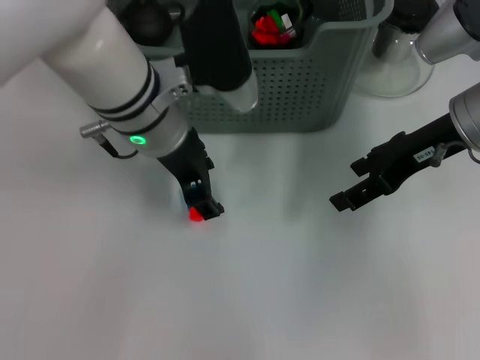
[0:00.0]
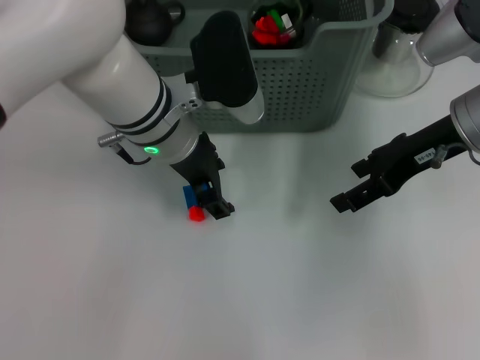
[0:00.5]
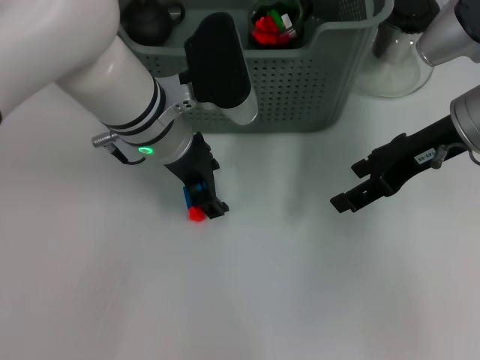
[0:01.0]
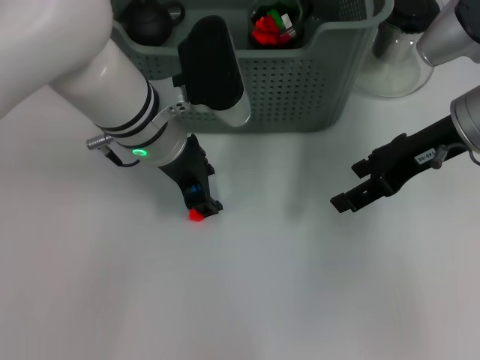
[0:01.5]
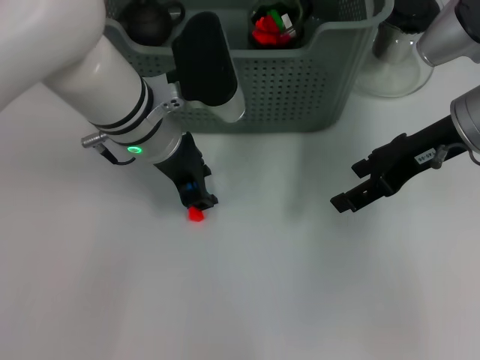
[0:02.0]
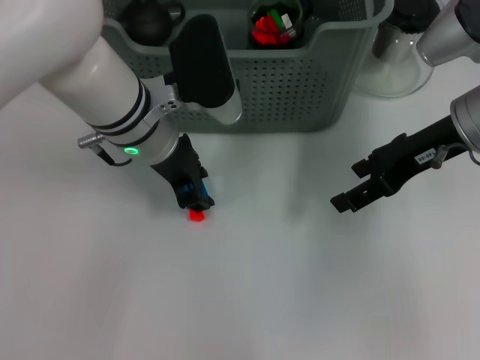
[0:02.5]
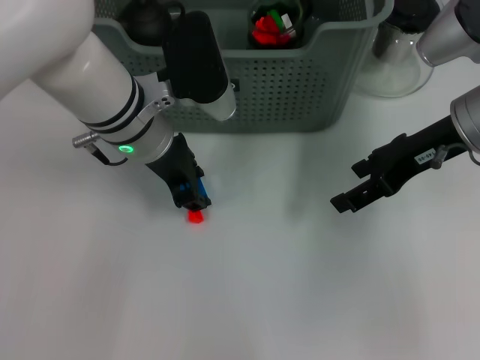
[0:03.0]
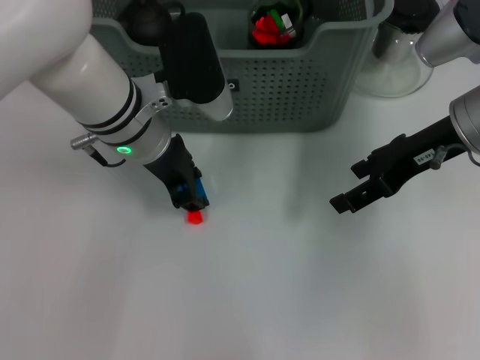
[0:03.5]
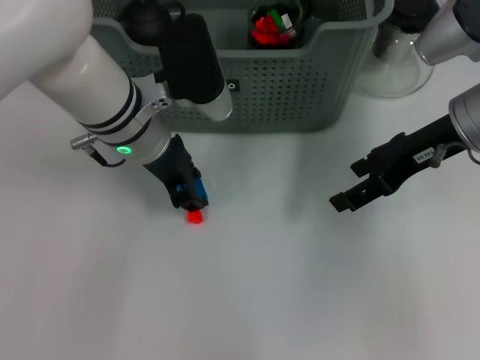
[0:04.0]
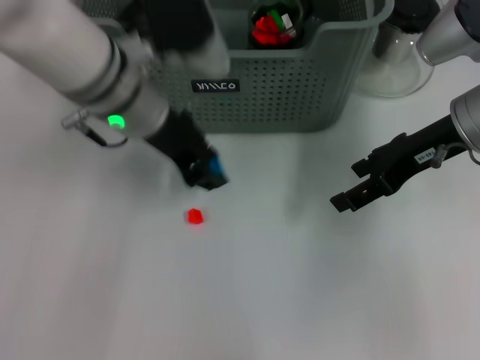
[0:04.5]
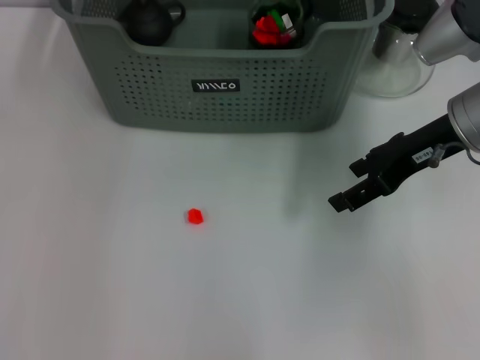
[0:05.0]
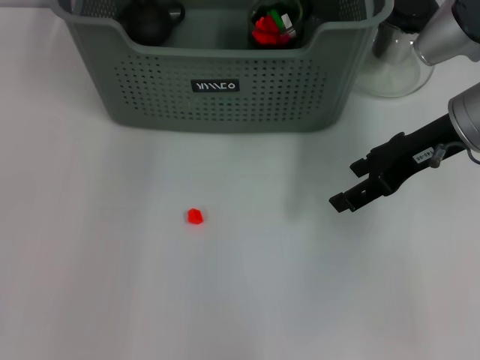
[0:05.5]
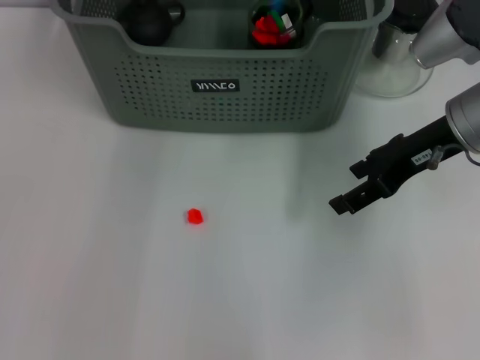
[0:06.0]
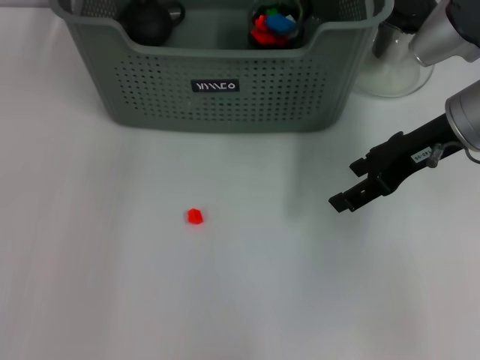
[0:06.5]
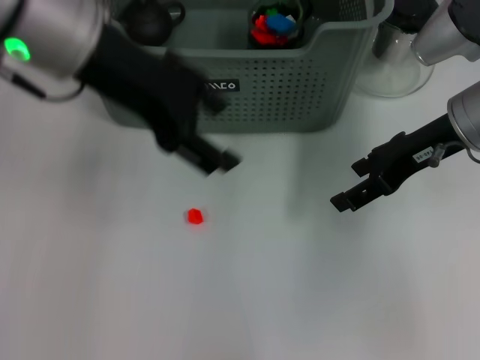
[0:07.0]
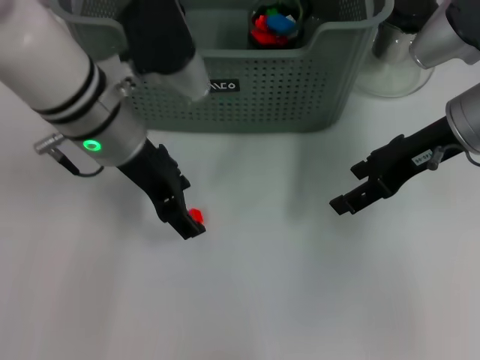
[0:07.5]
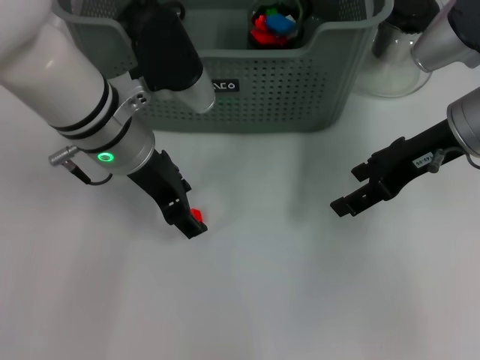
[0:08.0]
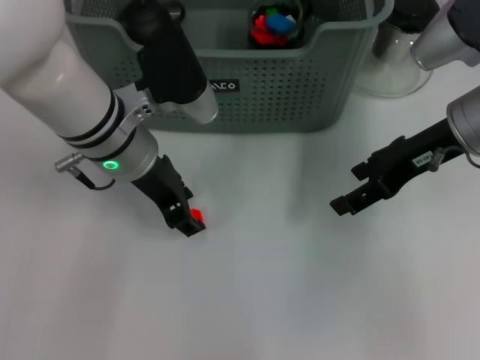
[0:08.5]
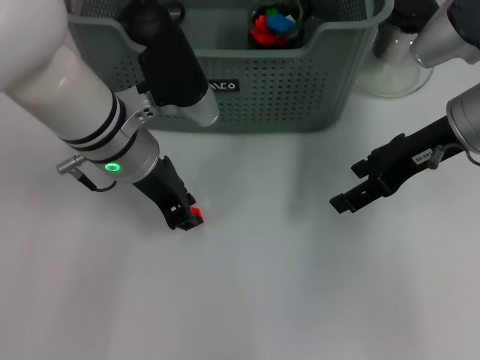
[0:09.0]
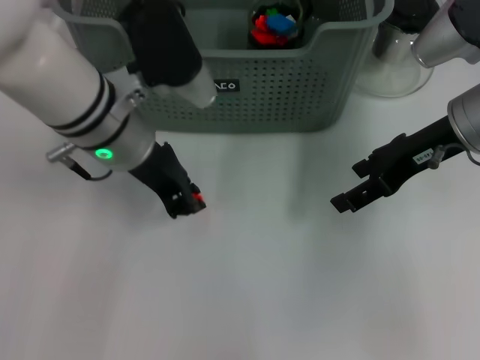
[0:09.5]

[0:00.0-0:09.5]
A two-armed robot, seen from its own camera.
Task of the whole recording: pick up the teacup on the table and place it into the storage bin, pick up the block on the table and place it into the storage bin.
Step, 0:00.0 to 0:04.0: Grasp the dark blue block with left gripper.
Step, 0:04.5 to 0:06.0: Place the dark blue block in the storage box with left gripper.
Step, 0:06.5 to 0:09.0: Grasp the orange block with left gripper.
0:00.0 to 0:02.0: There are only small adjustments of the grippers.
0:02.0 to 0:04.0: Neither gripper changes place.
0:04.0 to 0:05.5: The left gripper moves upward and forward, roughly 20 cm.
0:05.5 to 0:07.5: The left gripper is displaced downward and backward by roughly 20 cm, and opens its fingers.
0:07.5 to 0:09.5: The left gripper closes.

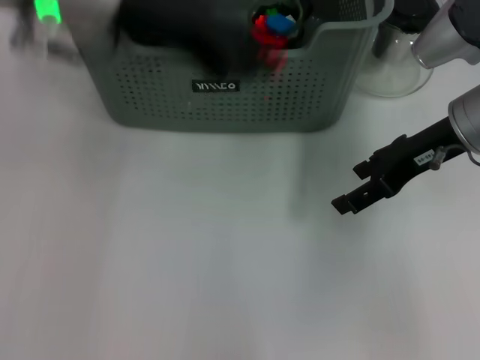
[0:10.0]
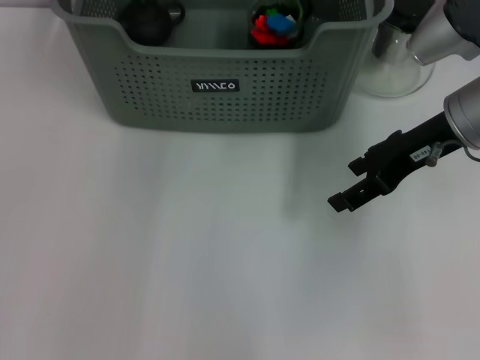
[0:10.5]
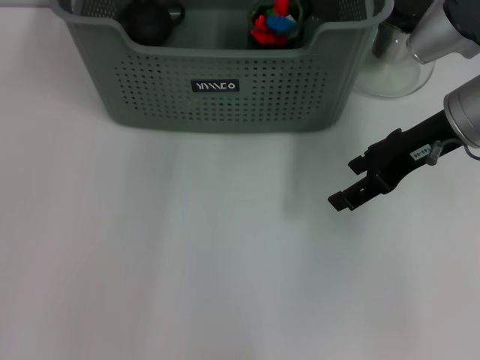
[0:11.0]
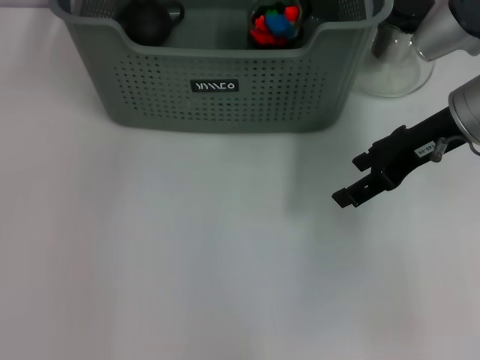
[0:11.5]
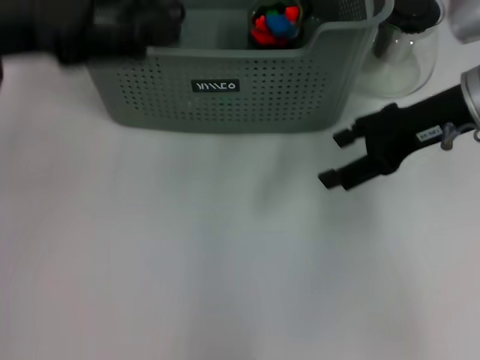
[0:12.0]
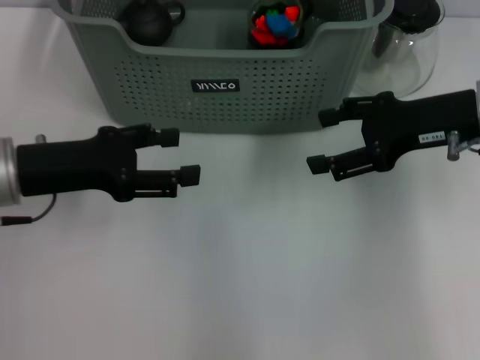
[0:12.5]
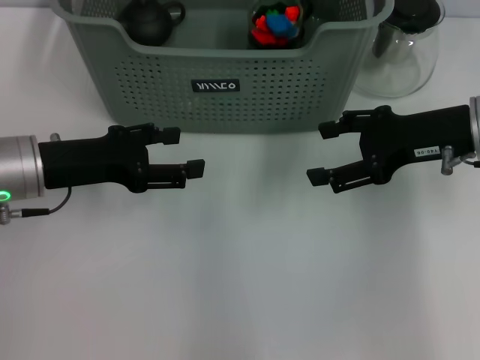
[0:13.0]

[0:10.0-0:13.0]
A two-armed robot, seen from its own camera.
Task of the whole recording: pick up the teacup on the table and place it into the storage bin, pick up the block on the table and place it into the storage bin.
Step, 0:10.0 to 0:11.0: Place the orange block in the storage box with left gripper.
0:10.0 to 0:11.5: The left gripper moves forward, some 10 cm, and opens up.
0:11.5 to 0:13.0: The left gripper travels downward, backward and to the left by about 25 cm.

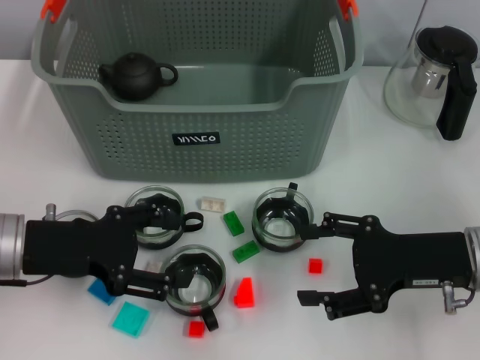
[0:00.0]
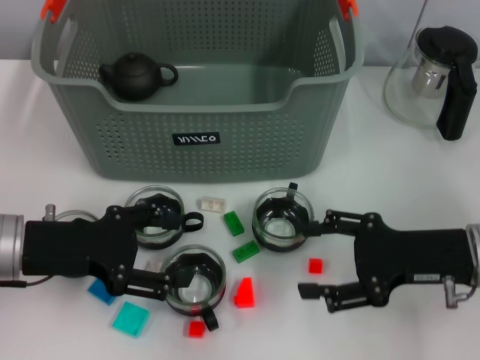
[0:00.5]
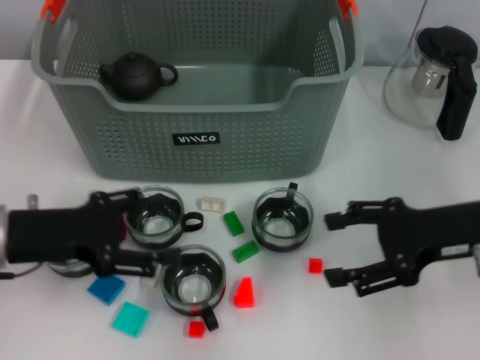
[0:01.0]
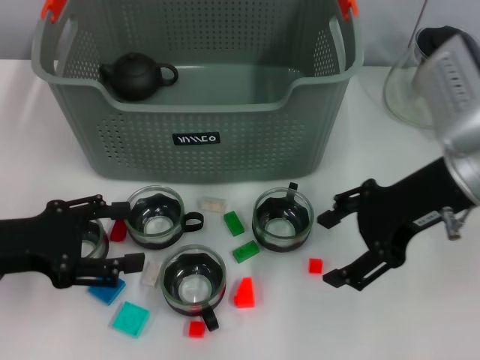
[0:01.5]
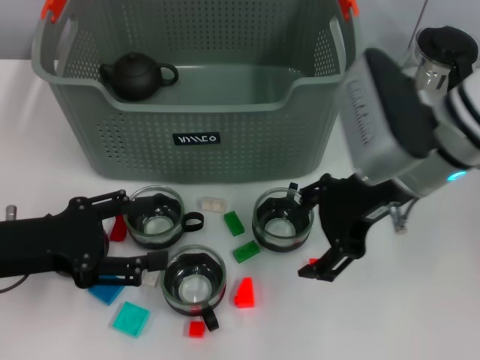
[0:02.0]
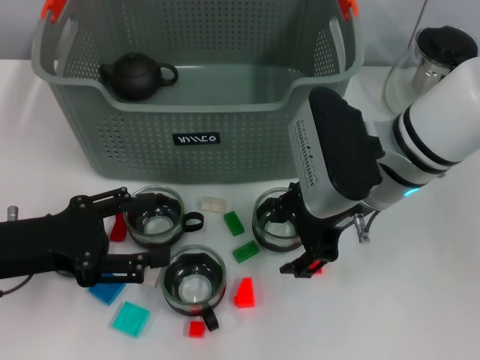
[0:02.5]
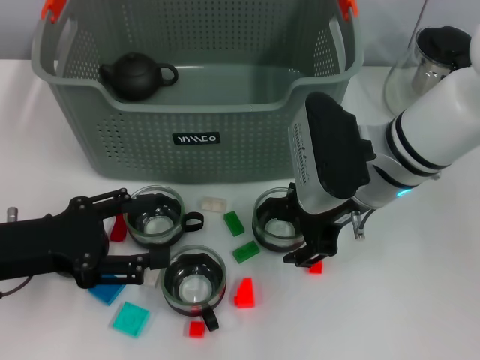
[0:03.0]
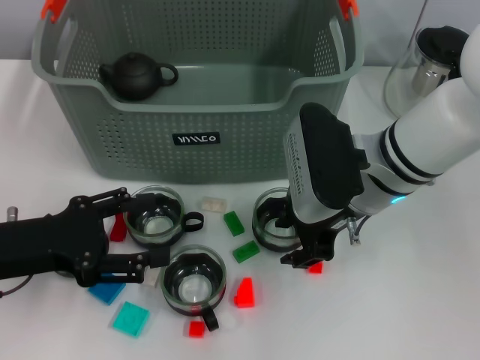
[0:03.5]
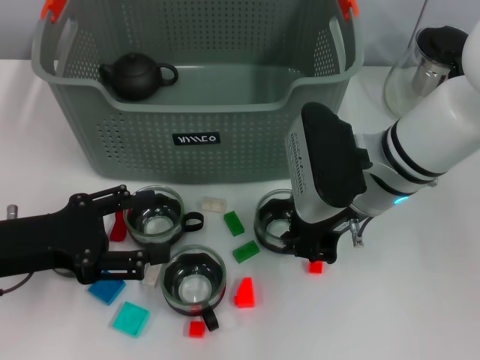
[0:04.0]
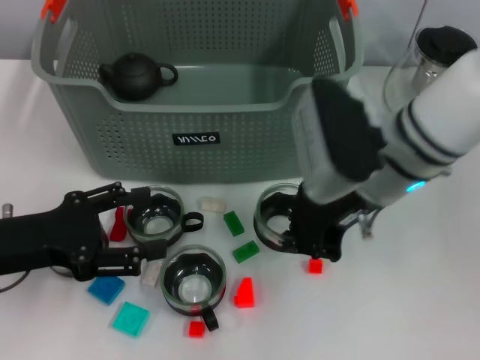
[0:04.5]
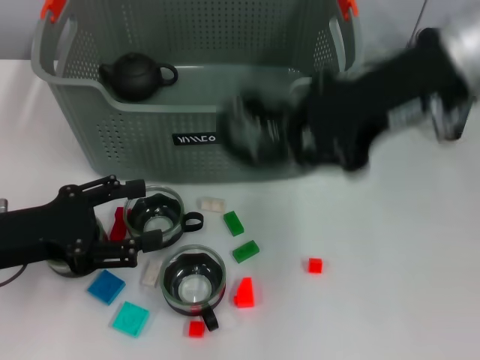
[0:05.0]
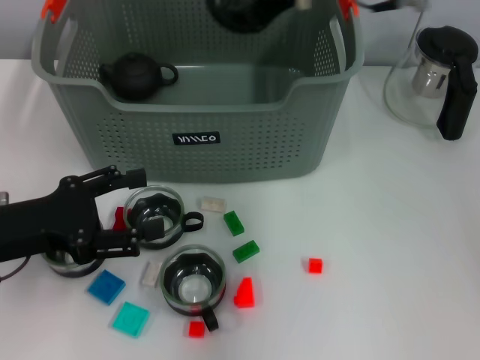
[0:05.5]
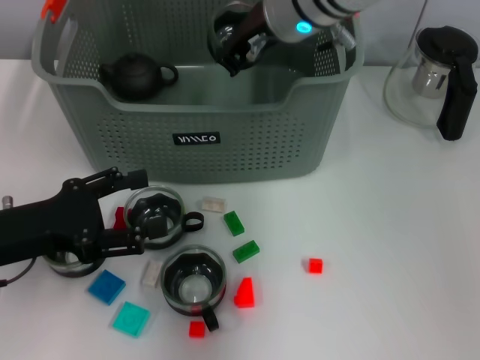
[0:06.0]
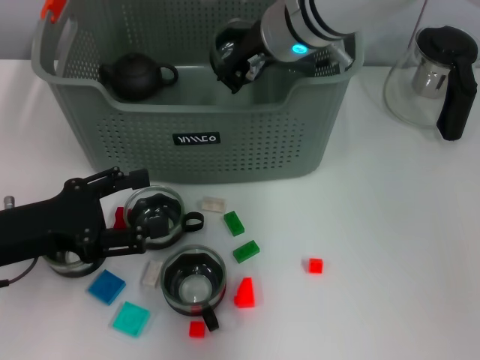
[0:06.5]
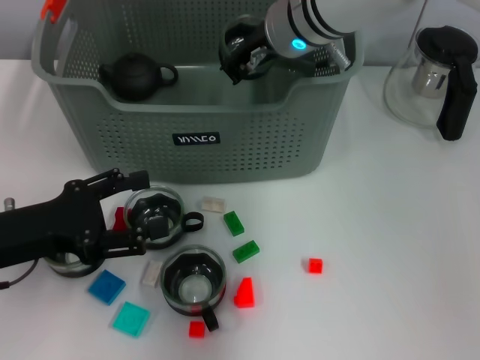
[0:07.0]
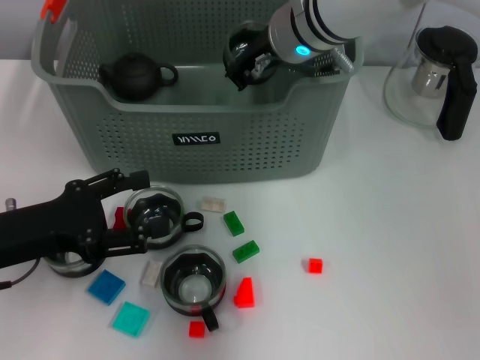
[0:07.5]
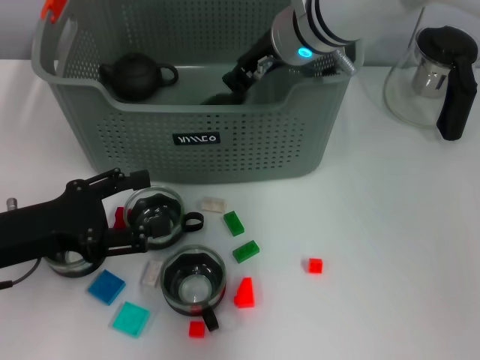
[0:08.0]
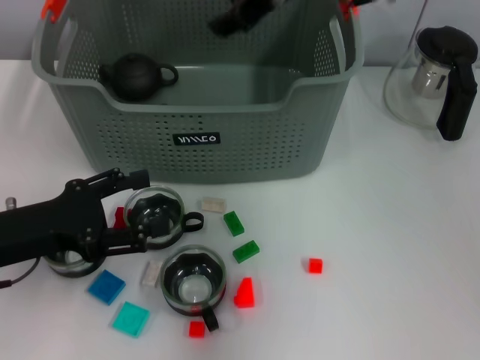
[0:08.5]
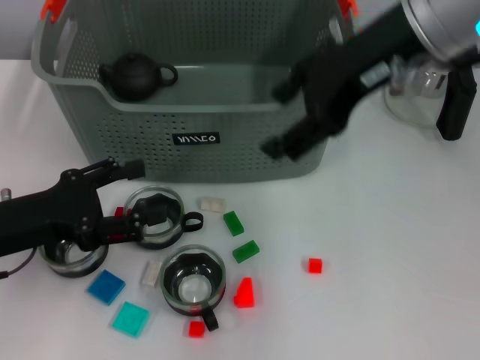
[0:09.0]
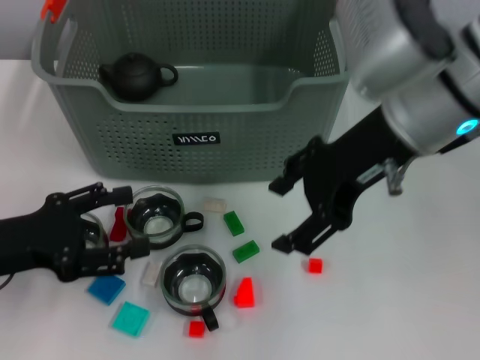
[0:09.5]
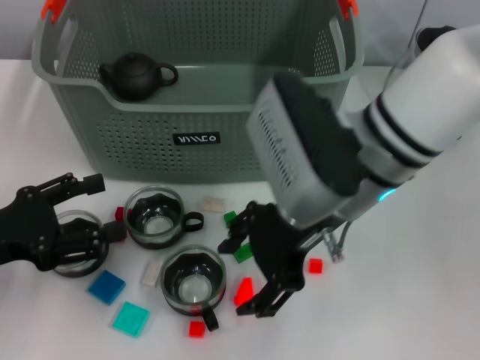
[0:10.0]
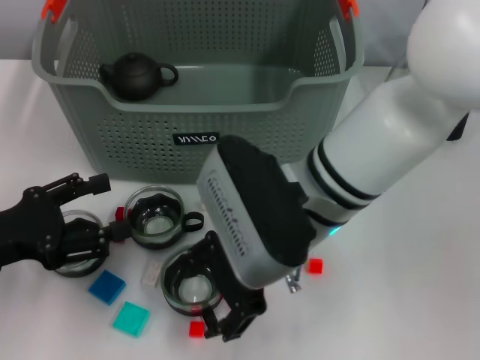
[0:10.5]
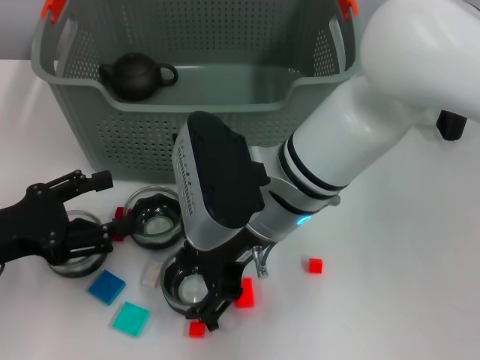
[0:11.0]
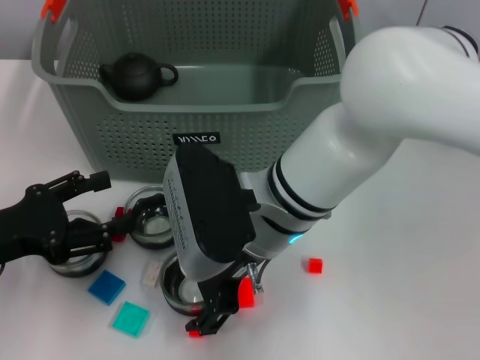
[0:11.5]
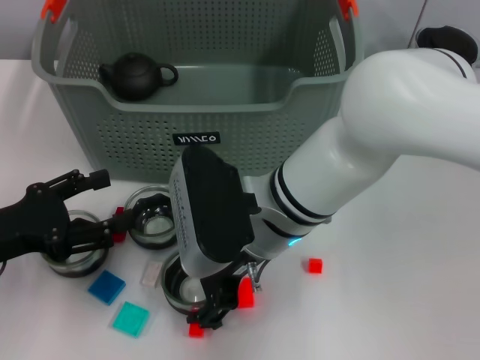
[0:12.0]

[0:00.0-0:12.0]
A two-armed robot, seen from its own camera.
Task of the whole recording: pick up the teacup on the table and place it into the storage bin, pick up the block on the table and place it into the storage bin.
Step, 0:00.0 to 0:04.0: Grasp the cup with right gripper.
Step, 0:04.5 to 0:08.0: Place the cup in the storage box with right gripper.
0:00.0 to 0:02.0: The right gripper is displaced upward, to the left and forward by about 15 cm.
0:02.0 to 0:04.0: The right gripper ends up some 5 cm from where it was, and closes.
0:04.0 to 0:06.0: The right gripper heads forward, upward and to the left, covering about 15 cm.
0:06.0 to 0:08.0: The grippers stay close to where they were, moving slightly.
0:08.0 to 0:10.0: The right gripper shifts about 15 cm backward, and opens its fingers.
0:10.0 to 0:12.0: The right gripper heads downward and to the left, covering about 10 cm.
